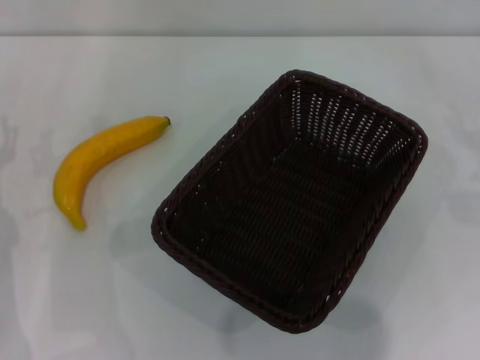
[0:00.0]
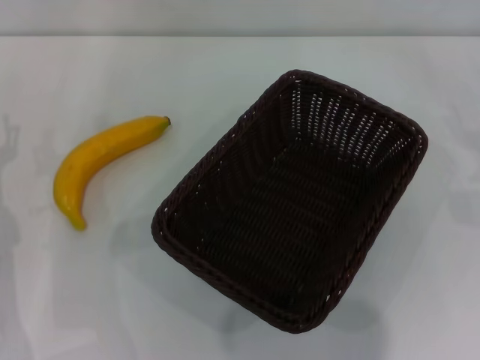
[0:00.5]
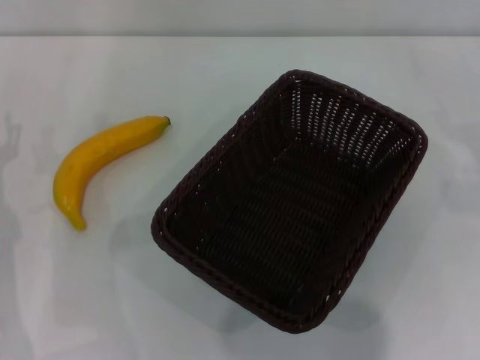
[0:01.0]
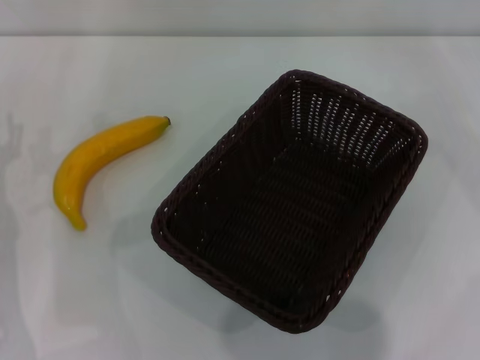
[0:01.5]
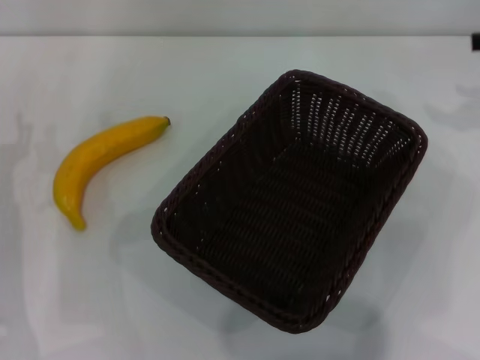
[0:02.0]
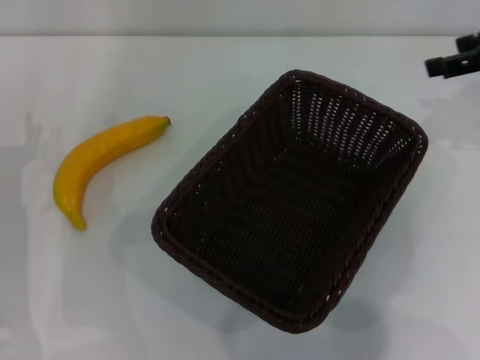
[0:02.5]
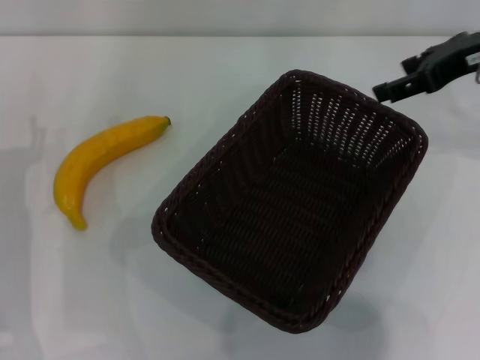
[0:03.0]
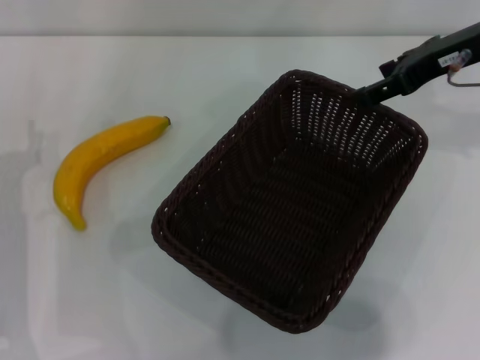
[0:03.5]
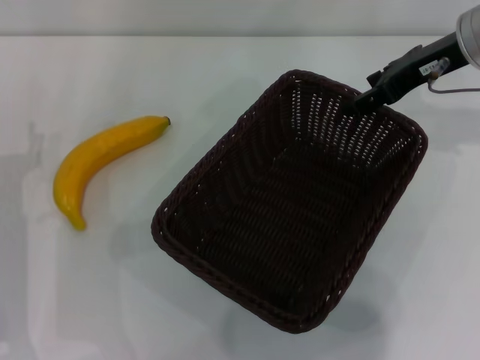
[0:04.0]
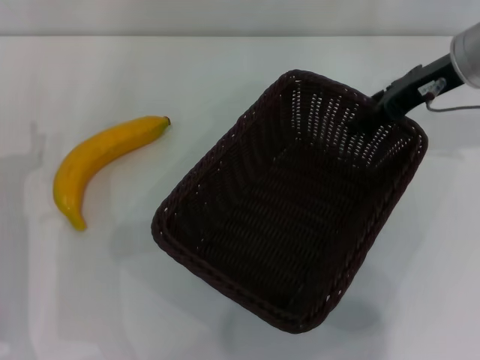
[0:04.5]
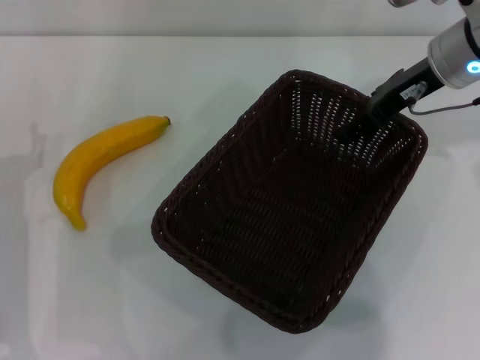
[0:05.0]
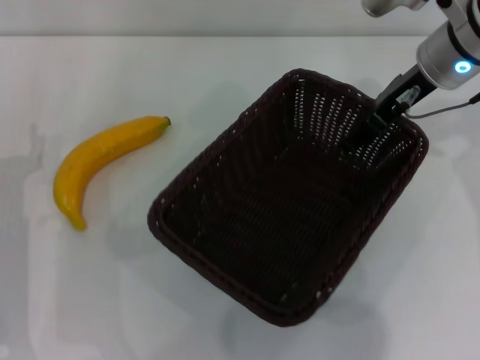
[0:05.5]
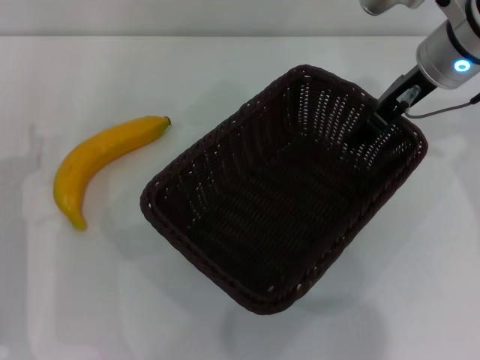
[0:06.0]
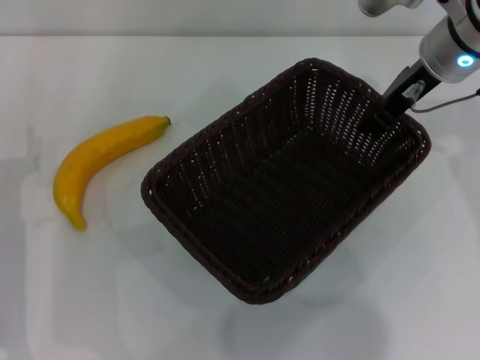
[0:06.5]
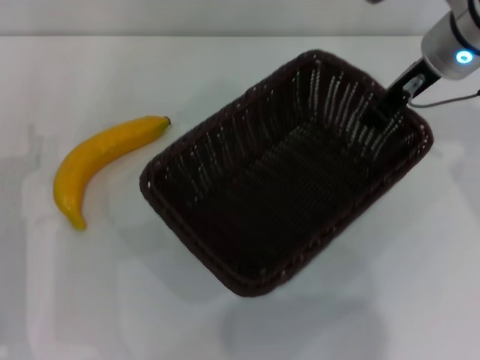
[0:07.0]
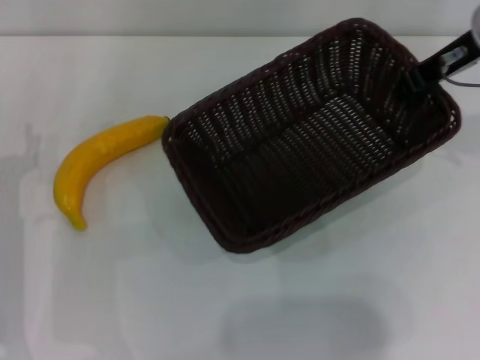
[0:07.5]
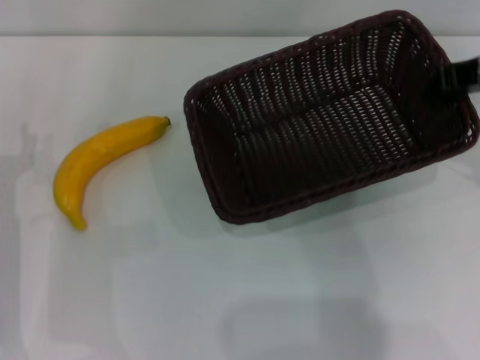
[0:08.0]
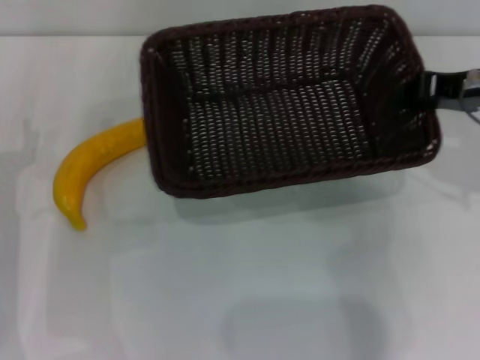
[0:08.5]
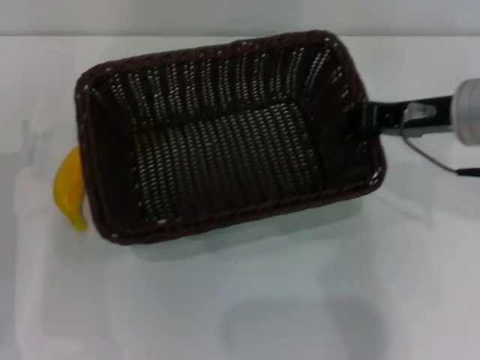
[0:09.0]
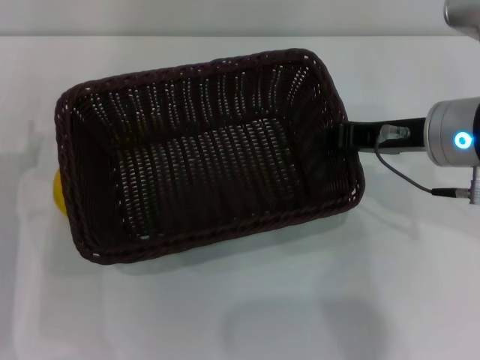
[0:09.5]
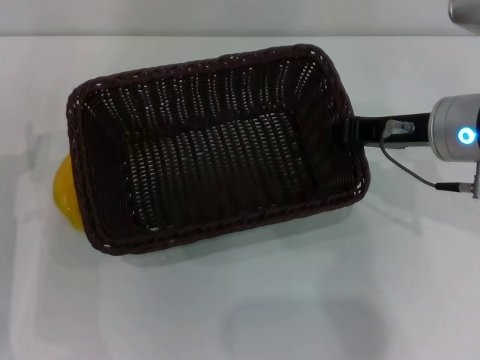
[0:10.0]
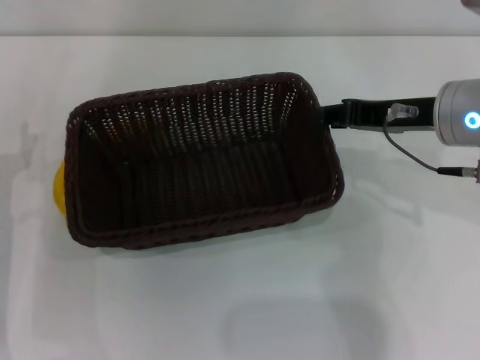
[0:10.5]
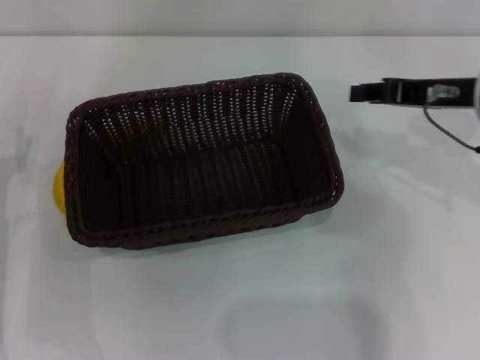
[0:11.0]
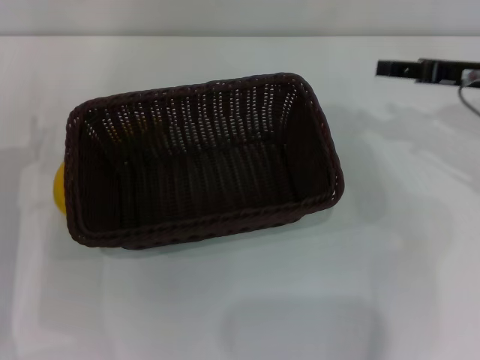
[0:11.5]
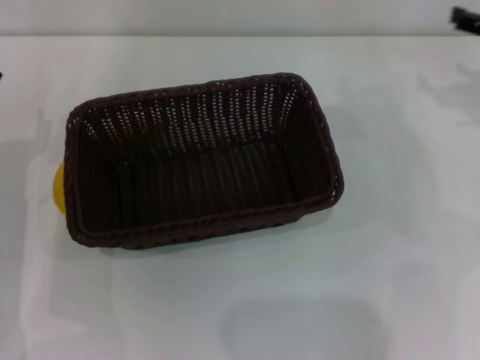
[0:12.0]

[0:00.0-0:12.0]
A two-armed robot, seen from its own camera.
Step, 0:00.0 to 0:07.0: Pick up the dark basket with the right gripper.
Step, 0:07.5 to 0:10.5: Place the dark basket in the center of view with the right gripper.
0:02.0 to 0:04.0: The right gripper shifts approximately 15 cm to the left.
0:04.0 to 0:06.0: The grippers move only a little.
0:06.0 to 0:08.0: The right gripper goes some 10 cm to the right and backward, and closes its fingers.
0:08.0 to 0:10.0: The right gripper heads to the left and downward, covering some 10 cm.
0:10.0 to 0:12.0: The right gripper travels to the right and forward by roughly 15 cm, and opens its fingers.

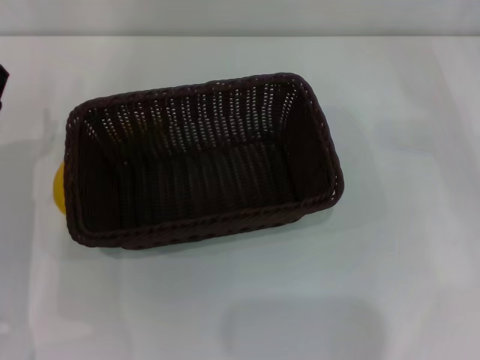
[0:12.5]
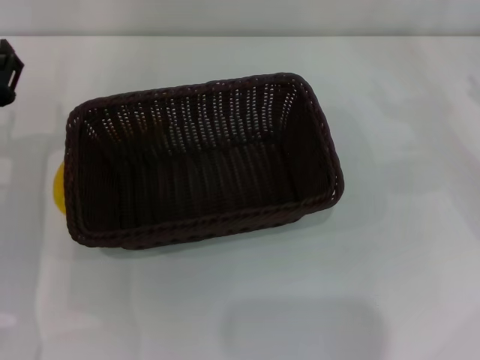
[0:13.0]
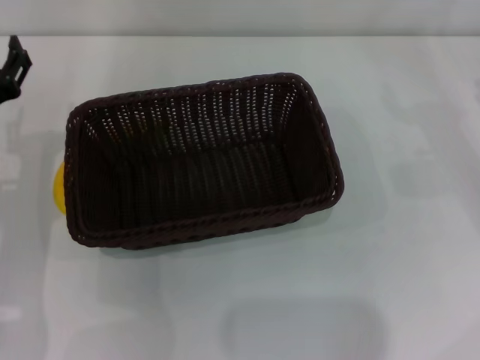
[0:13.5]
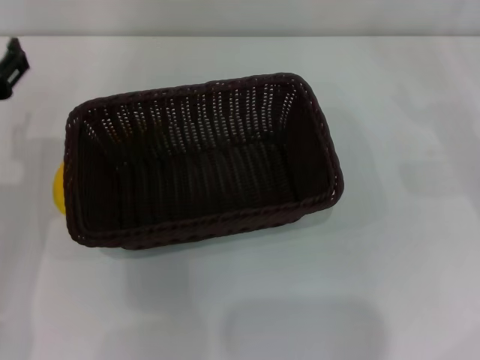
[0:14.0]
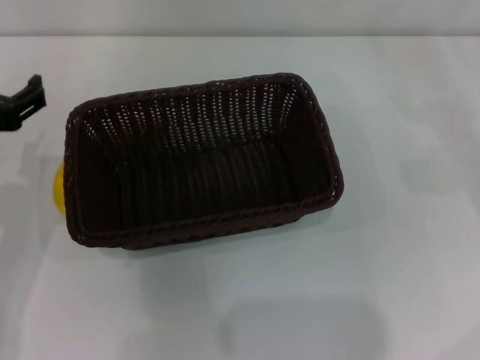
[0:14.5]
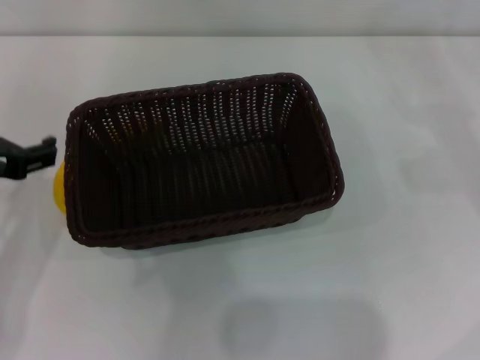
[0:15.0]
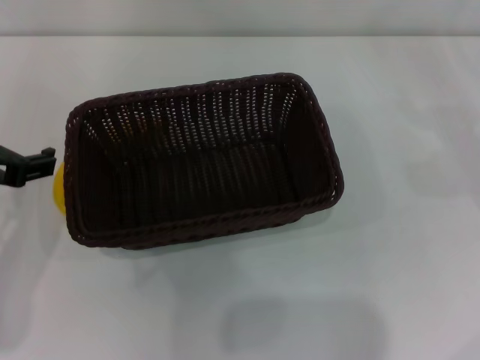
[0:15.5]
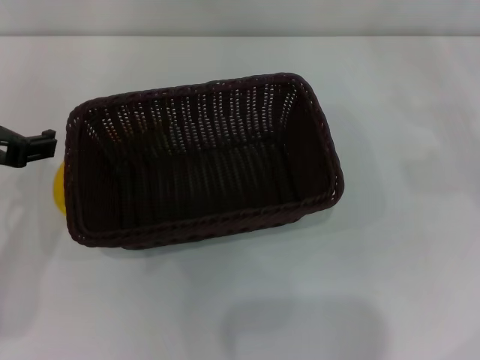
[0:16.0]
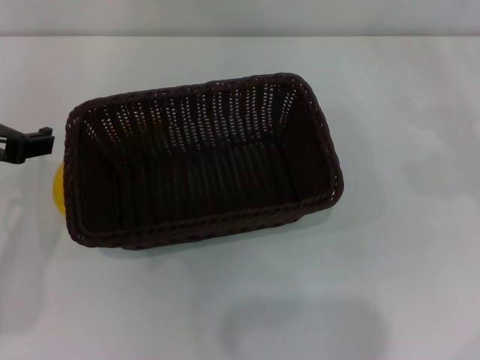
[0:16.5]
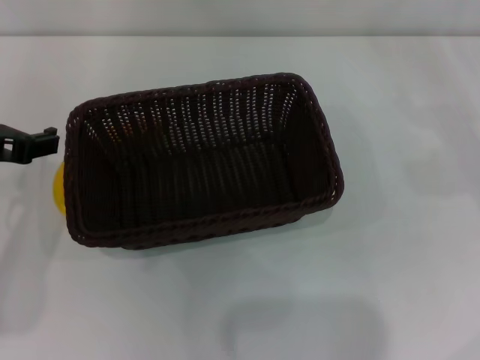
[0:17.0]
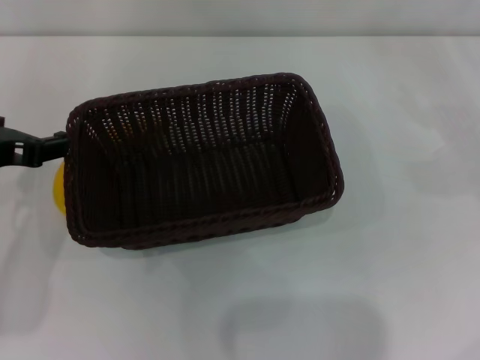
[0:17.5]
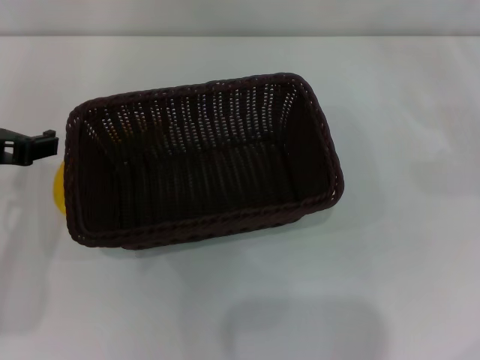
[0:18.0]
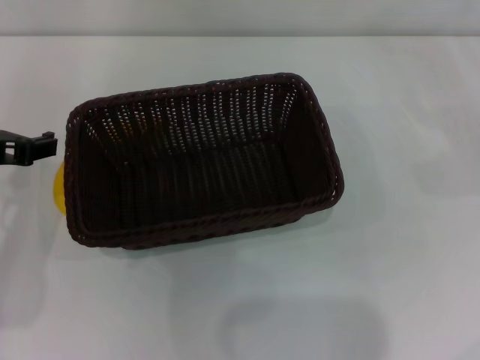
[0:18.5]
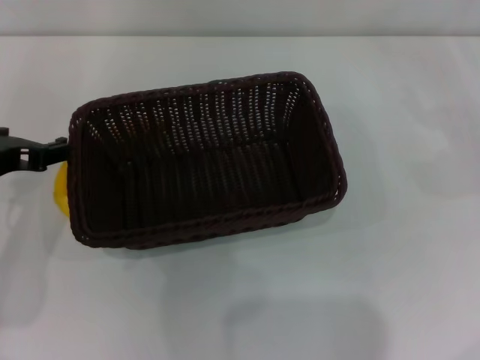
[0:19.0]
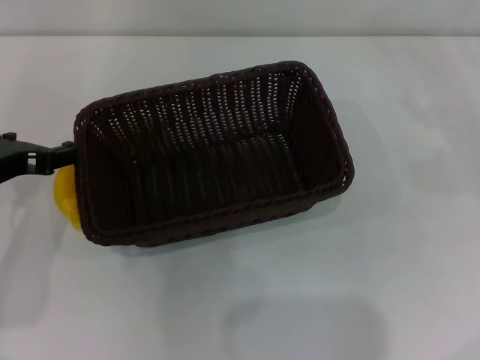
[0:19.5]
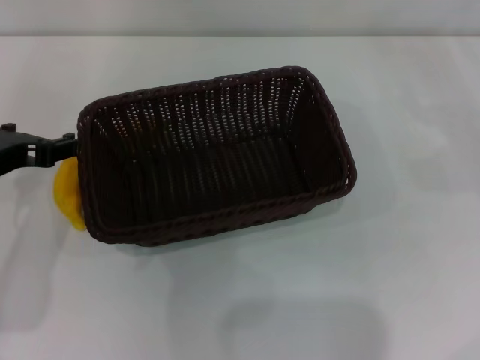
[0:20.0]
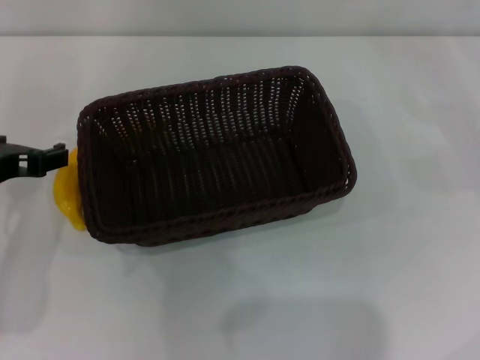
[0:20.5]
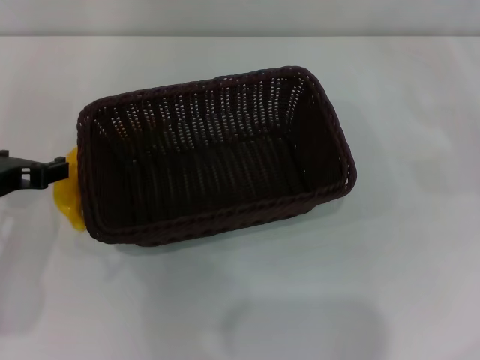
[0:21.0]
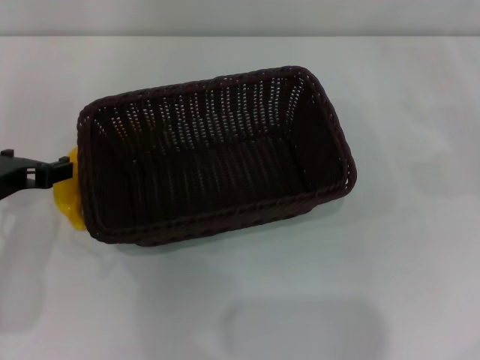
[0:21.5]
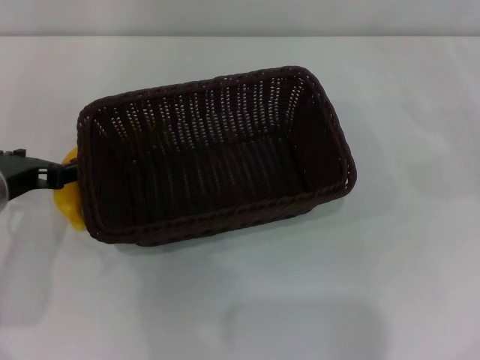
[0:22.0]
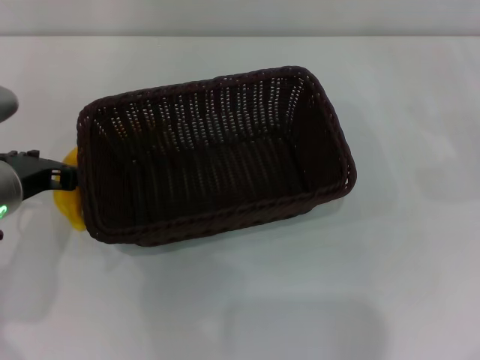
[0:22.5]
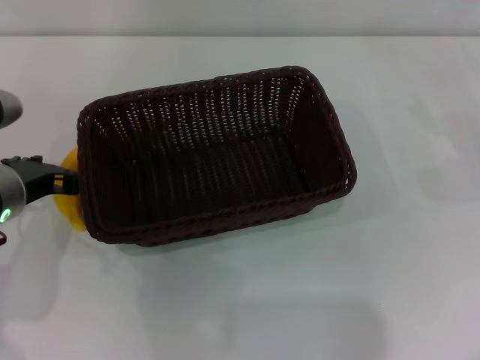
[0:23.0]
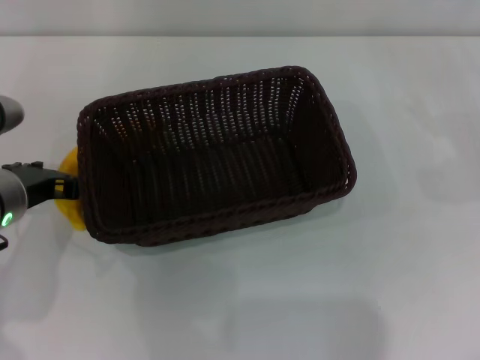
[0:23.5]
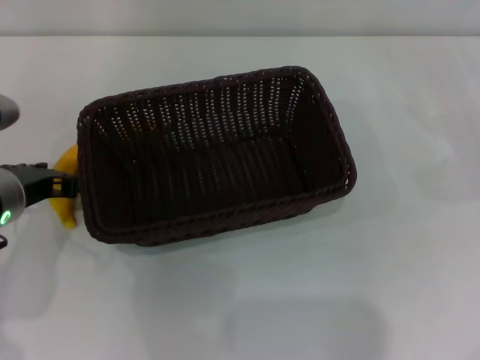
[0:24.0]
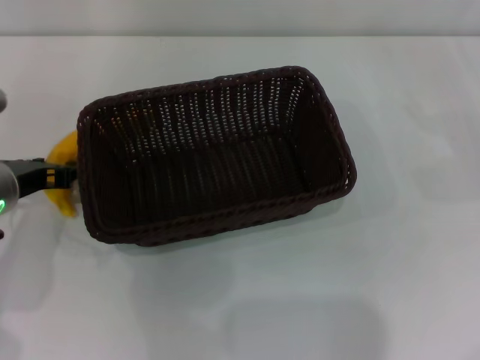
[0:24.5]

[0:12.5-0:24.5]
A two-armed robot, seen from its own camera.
0:12.5 to 0:14.5: The left gripper goes some 10 cm upward.
0:18.5 to 0:20.5: The grippers move only a little.
0:20.5 to 0:22.5: There are only small adjustments of the grippers.
0:22.5 to 0:24.5: The left gripper closes.

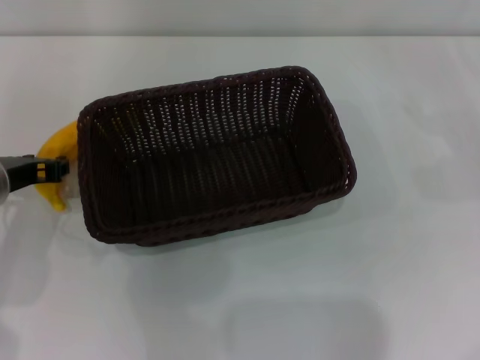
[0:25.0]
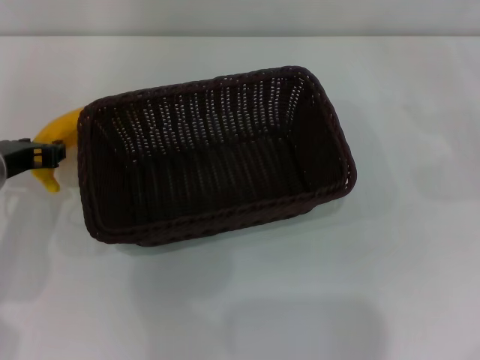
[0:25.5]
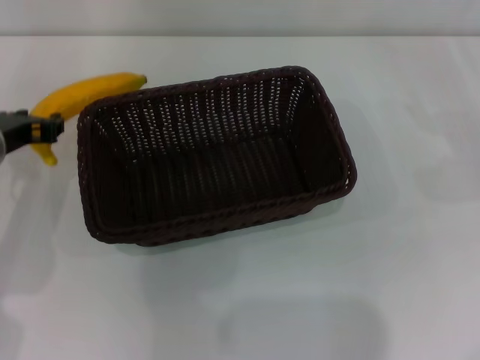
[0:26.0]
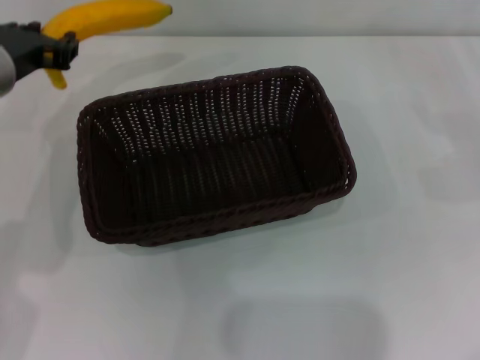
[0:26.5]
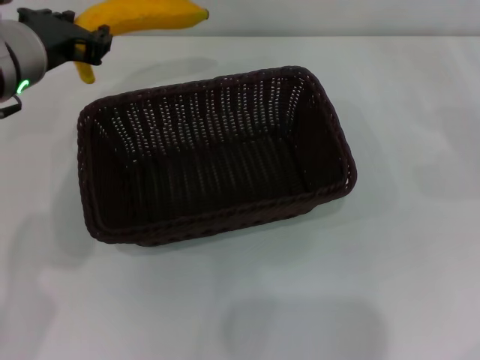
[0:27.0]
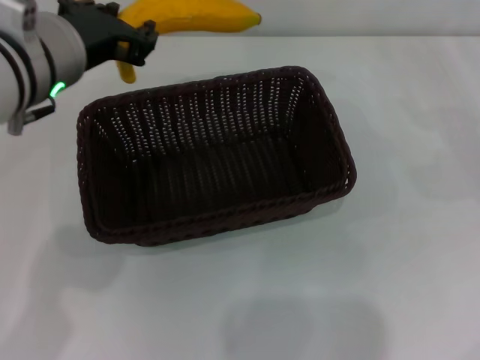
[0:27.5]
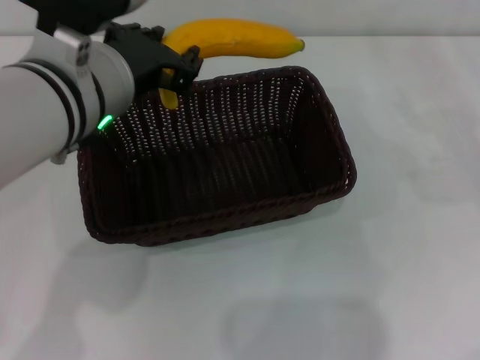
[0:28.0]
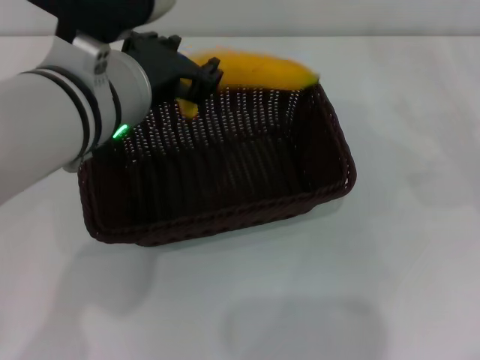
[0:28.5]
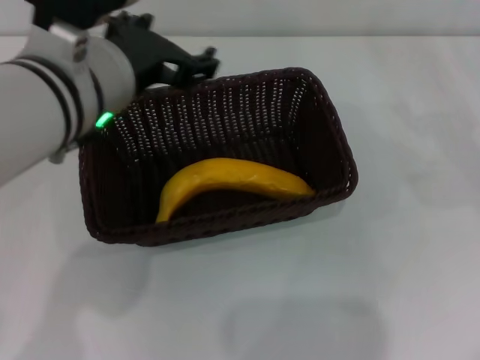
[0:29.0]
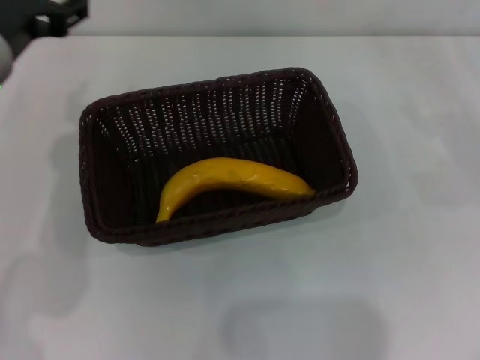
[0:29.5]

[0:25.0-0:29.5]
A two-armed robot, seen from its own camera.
Step, 0:26.0 to 0:28.5: Place the banana into the dark basket with the left gripper.
0:25.0 to 0:27.0: The left gripper moves upward and to the right, approximately 10 cm.
0:27.0 to 0:29.5: The left gripper moves roughly 10 cm to the right and comes back, and opens up.
